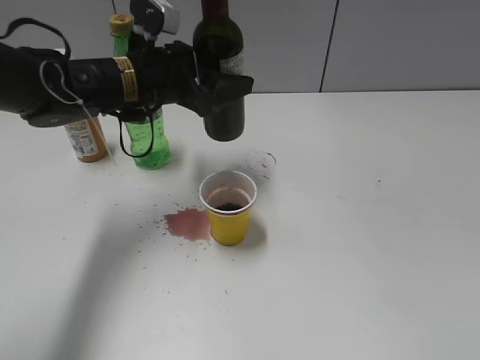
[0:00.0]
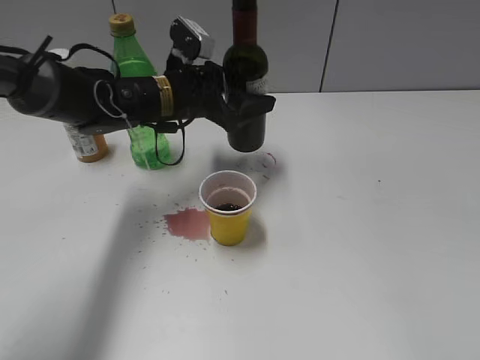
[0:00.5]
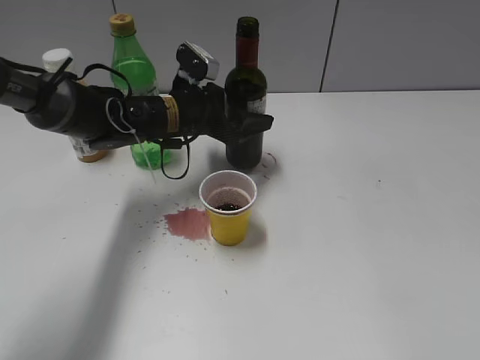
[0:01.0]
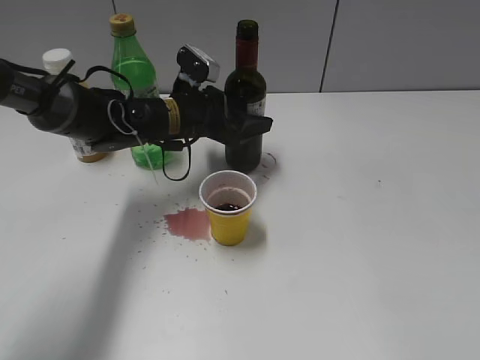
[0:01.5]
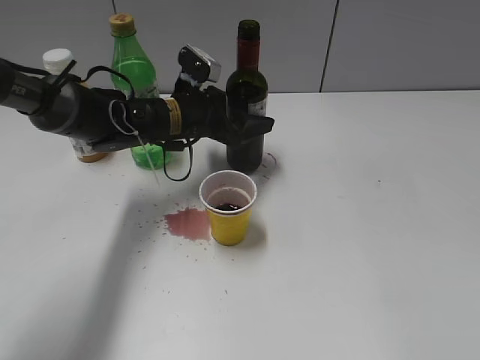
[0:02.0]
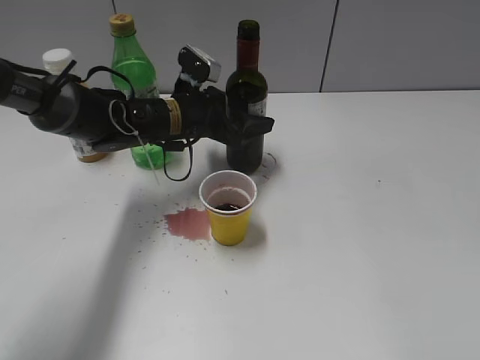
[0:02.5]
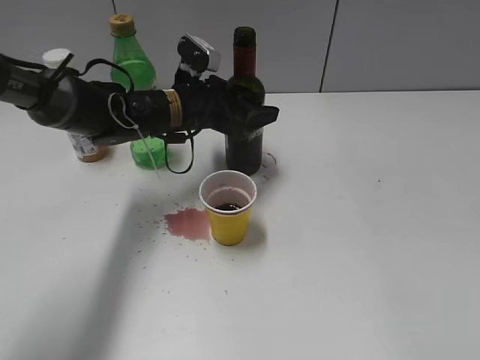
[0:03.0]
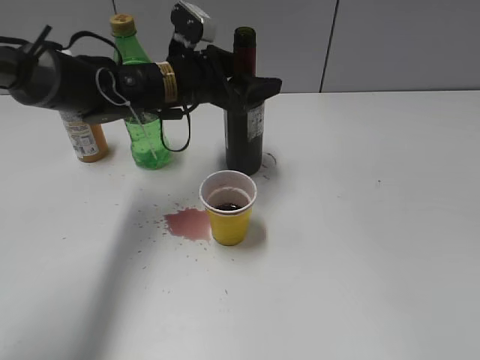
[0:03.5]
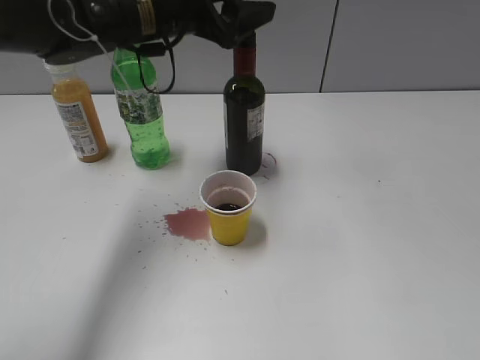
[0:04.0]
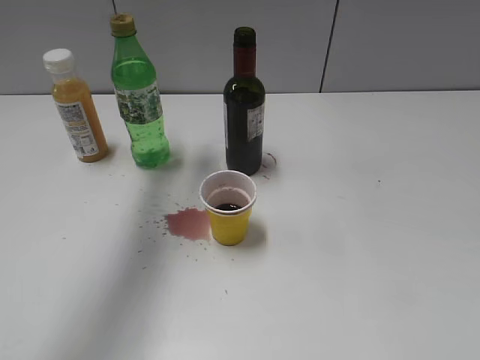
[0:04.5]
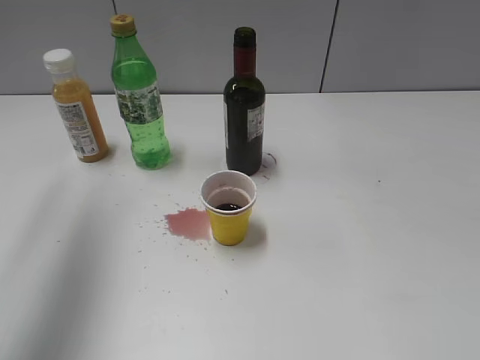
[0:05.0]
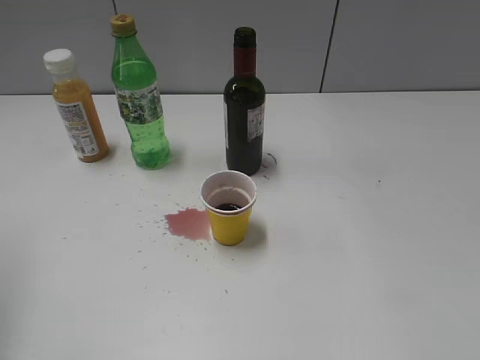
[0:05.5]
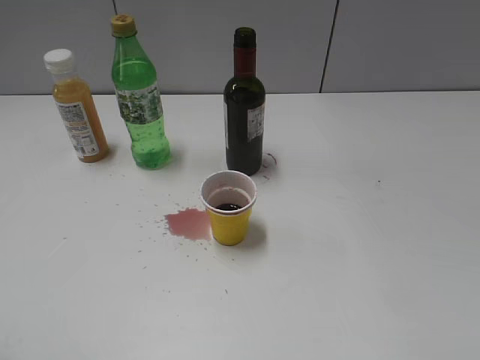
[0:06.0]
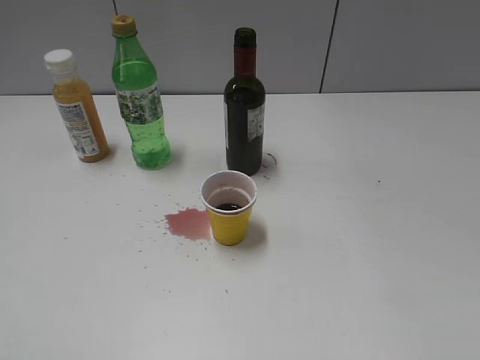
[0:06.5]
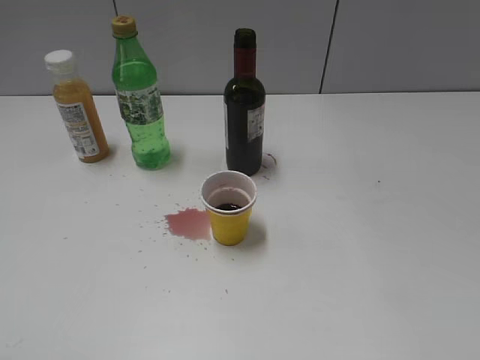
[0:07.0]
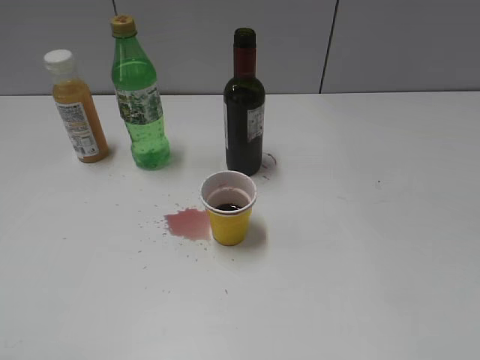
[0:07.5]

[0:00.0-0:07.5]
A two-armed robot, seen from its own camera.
Step, 0:00.0 to 0:03.0: Place the red wine bottle on the table with left gripper.
0:00.0 to 0:02.0: The left gripper goes roughly 10 cm downward.
0:02.0 to 0:04.0: The left gripper moves upward, approximately 15 cm.
0:04.0 to 0:05.5: The left gripper shifts about 35 cm to the left, backward and upward.
